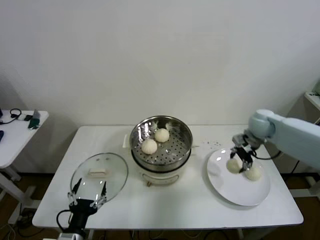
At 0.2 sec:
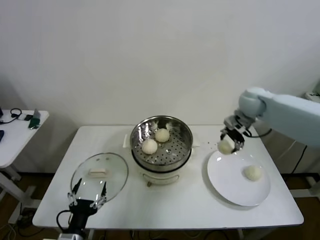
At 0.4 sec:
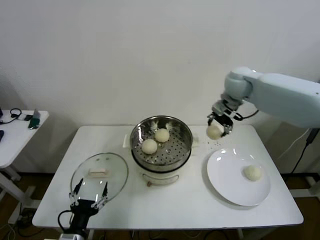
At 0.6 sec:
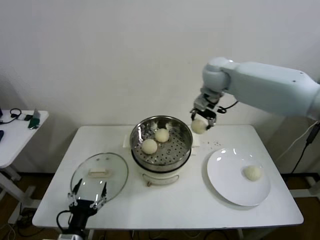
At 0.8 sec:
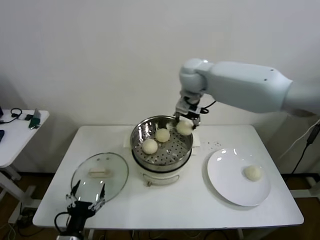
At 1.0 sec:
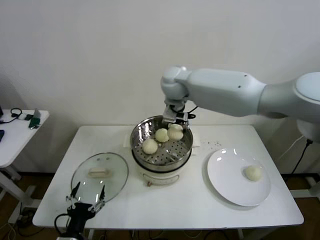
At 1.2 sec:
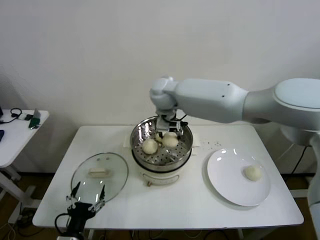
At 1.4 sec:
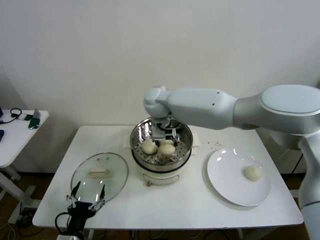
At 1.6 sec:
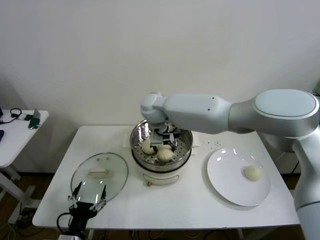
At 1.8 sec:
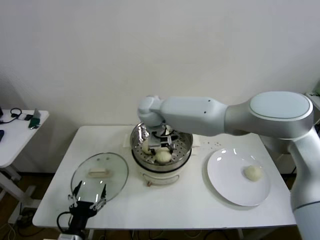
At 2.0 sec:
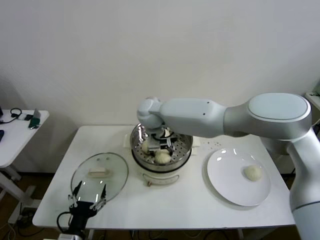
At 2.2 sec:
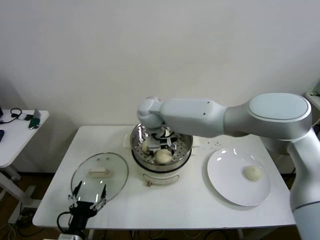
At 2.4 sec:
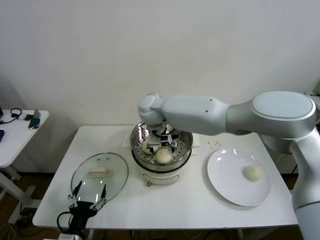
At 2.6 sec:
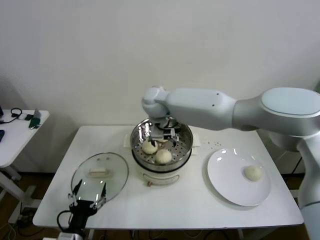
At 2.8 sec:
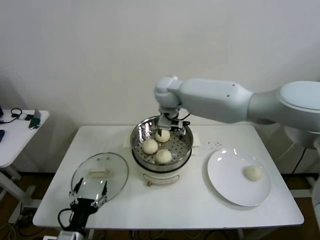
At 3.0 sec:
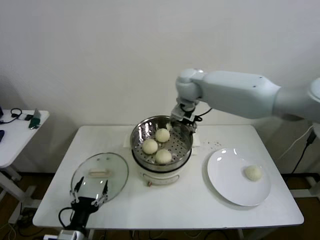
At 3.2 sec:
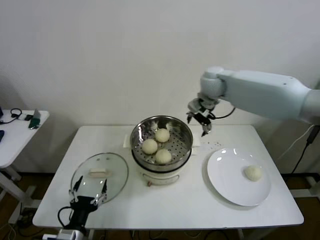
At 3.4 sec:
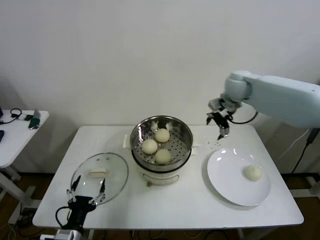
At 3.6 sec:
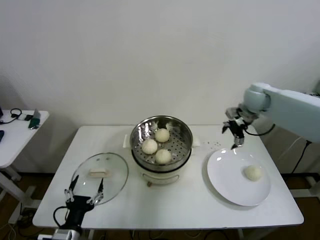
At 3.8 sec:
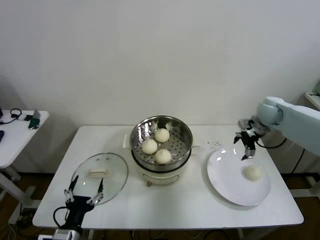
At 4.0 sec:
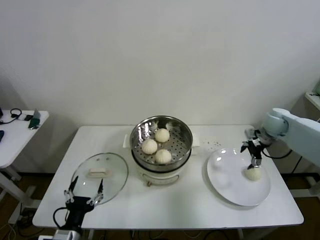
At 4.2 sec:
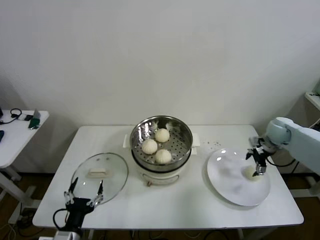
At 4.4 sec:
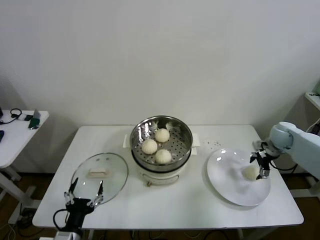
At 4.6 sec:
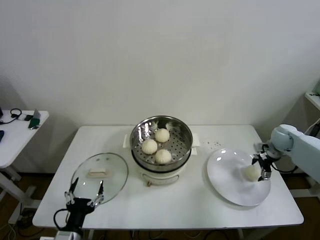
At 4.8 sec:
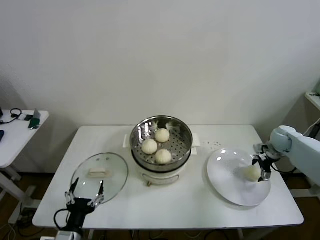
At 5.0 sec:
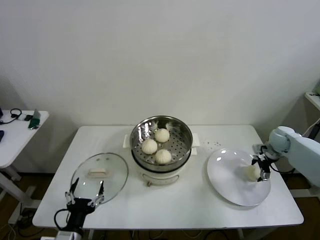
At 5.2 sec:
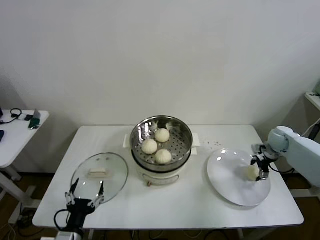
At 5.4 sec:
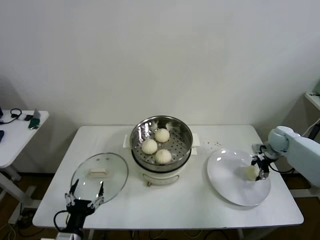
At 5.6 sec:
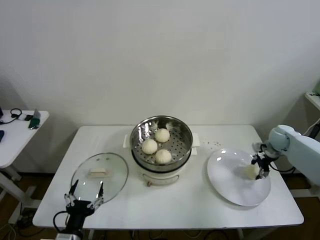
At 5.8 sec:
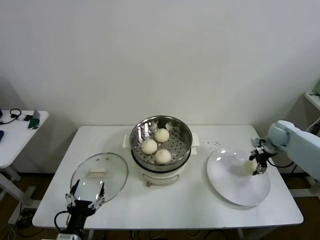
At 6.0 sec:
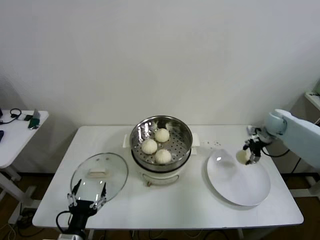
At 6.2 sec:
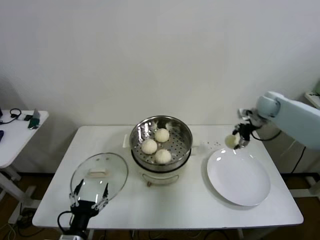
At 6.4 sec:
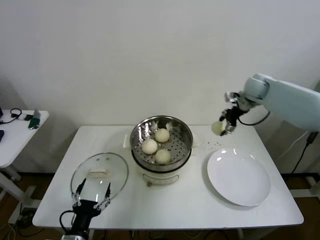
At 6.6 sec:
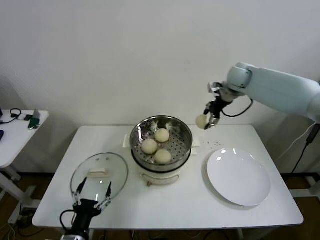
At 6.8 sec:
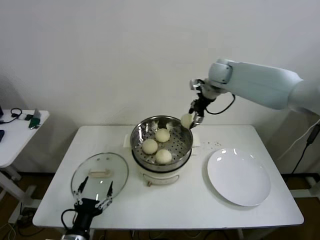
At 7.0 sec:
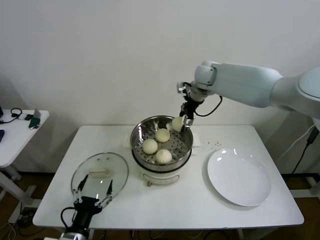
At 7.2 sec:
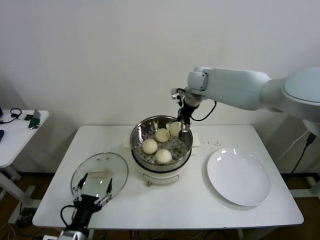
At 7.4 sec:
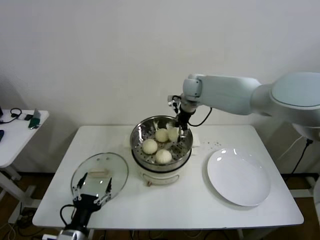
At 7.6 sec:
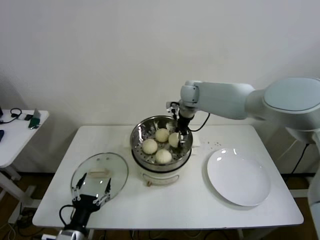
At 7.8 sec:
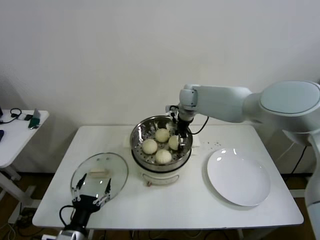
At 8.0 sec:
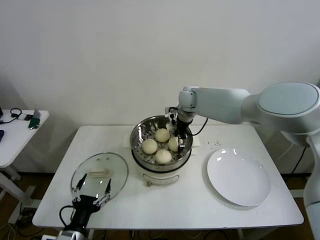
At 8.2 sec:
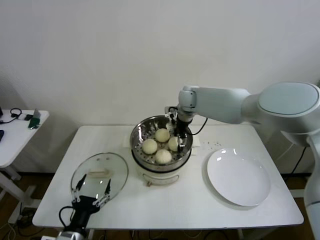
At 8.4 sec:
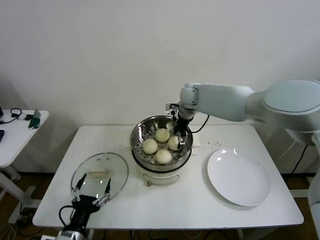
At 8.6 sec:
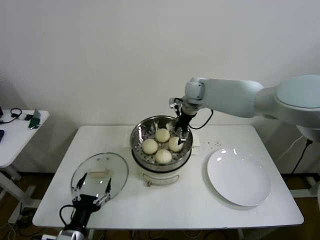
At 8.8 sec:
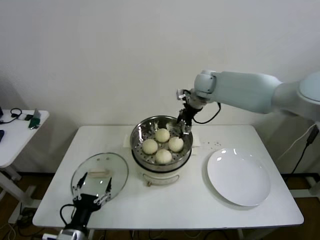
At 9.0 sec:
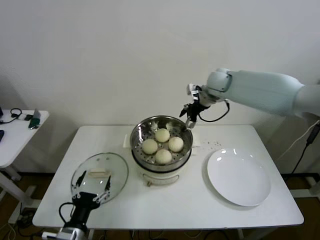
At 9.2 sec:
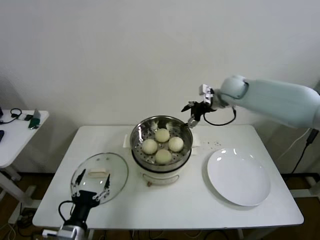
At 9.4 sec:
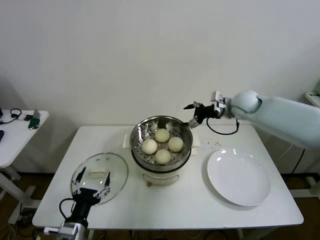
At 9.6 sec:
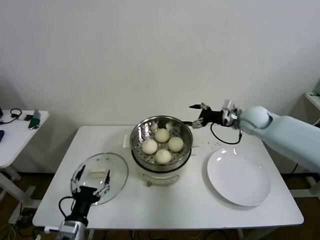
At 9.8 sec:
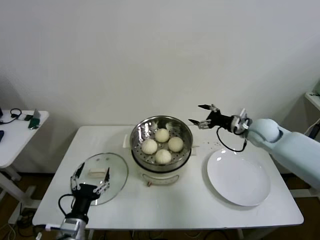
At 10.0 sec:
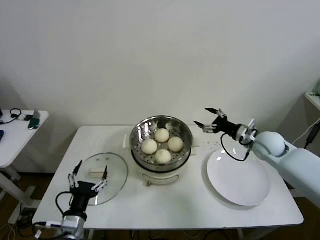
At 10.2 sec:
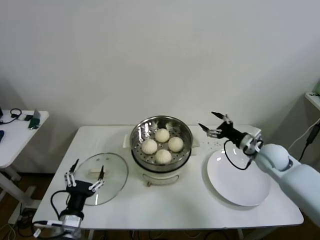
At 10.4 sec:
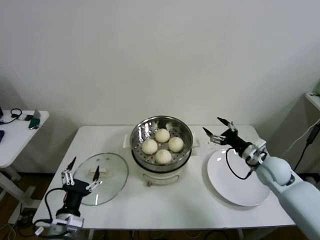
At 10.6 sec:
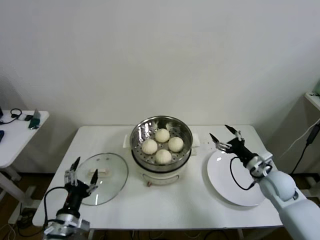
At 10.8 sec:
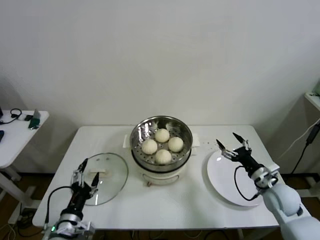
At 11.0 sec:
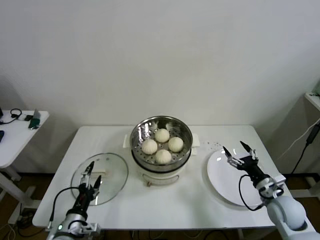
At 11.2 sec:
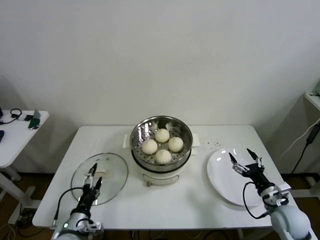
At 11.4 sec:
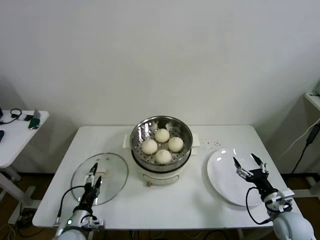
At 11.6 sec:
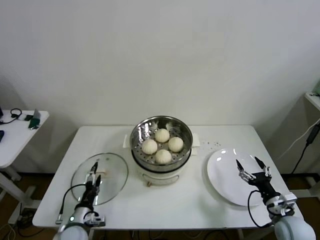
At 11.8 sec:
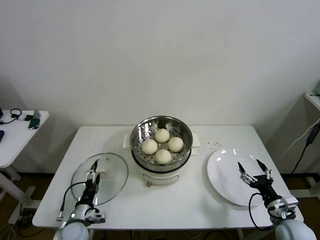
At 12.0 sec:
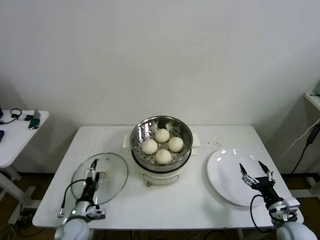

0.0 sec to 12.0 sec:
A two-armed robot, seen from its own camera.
Step, 0.0 sec to 2.2 sec: Place the baozi on the steamer with right gripper.
Step, 2.4 sec to 5.4 sec: Grasp the baozi in the plate with right gripper.
Step, 5.6 sec to 8.2 sec: Place the baozi on the steamer with right gripper.
0.0 sec to 1.6 sec: The right gripper travels to the left by roughly 35 cm.
1.6 sec to 3.0 sec: The right gripper heads to the right and upward, covering approximately 15 cm, and opens up.
3.0 sec to 4.4 sec: The right gripper heads to the right and downward, covering about 40 cm.
4.4 sec to 6.0 sec: The right gripper changes place by some 5 cm, and closes.
6.0 sec to 7.6 sec: The right gripper is displaced to the left by approximately 35 cm.
7.6 sec to 9.0 sec: The right gripper goes approximately 10 cm to the right and upward, and opens.
9.0 sec to 10.4 sec: The right gripper goes roughly 35 cm downward, backward and to the right.
10.4 sec to 12.0 sec: The left gripper goes about 15 cm downward and forward, while the right gripper heads backward and downward, covering roughly 20 cm.

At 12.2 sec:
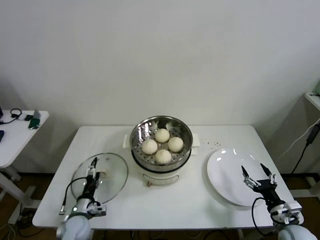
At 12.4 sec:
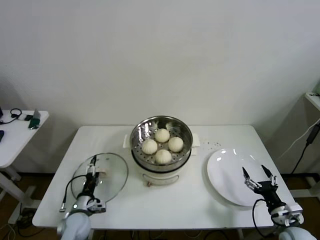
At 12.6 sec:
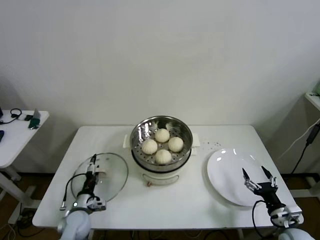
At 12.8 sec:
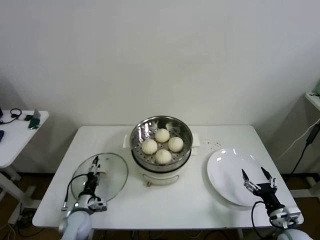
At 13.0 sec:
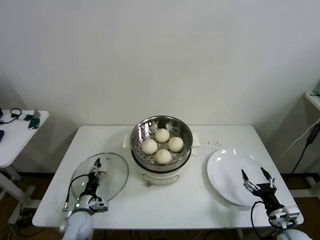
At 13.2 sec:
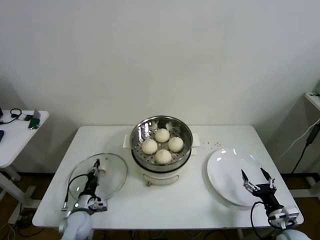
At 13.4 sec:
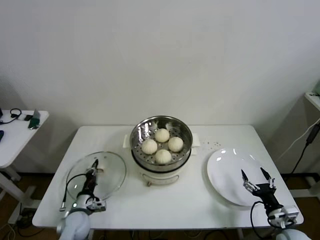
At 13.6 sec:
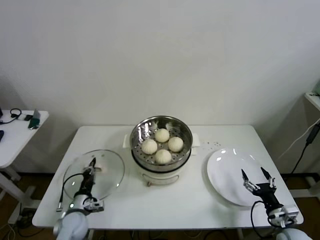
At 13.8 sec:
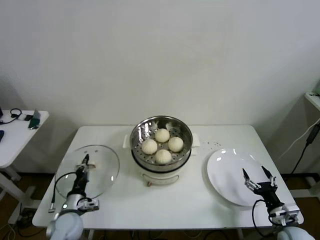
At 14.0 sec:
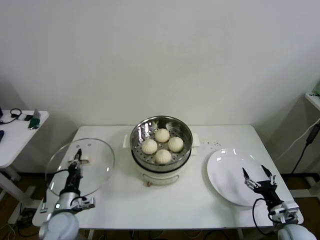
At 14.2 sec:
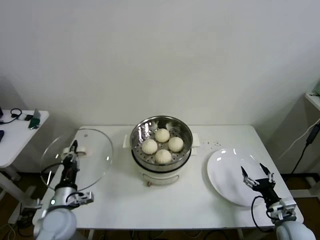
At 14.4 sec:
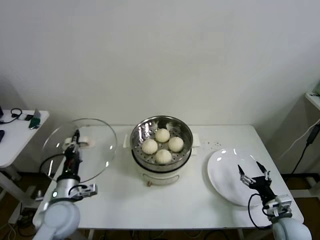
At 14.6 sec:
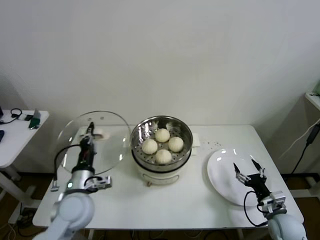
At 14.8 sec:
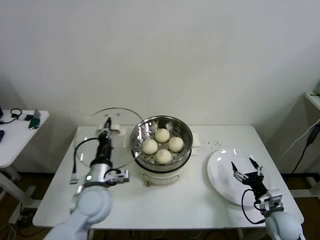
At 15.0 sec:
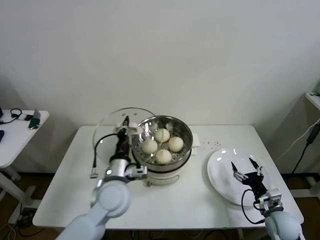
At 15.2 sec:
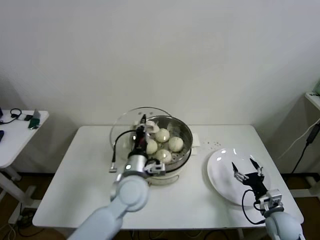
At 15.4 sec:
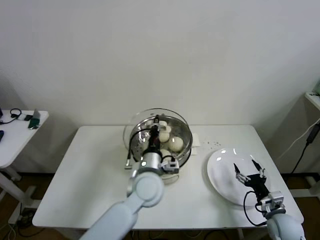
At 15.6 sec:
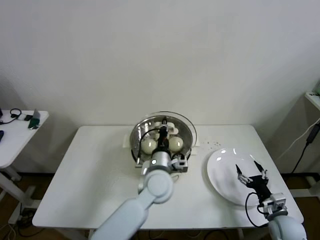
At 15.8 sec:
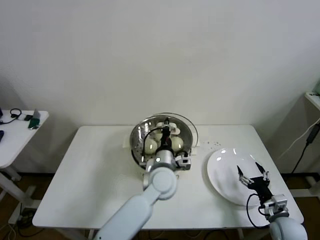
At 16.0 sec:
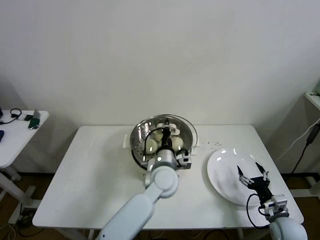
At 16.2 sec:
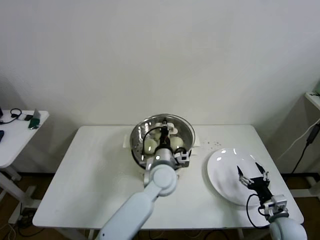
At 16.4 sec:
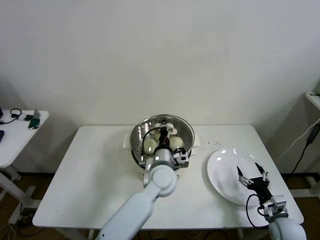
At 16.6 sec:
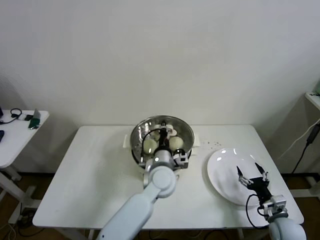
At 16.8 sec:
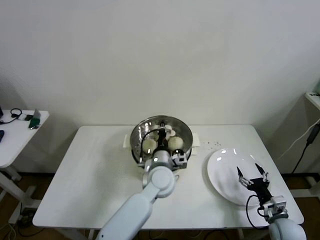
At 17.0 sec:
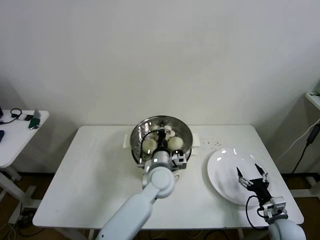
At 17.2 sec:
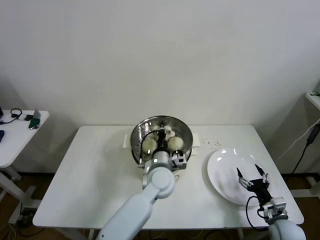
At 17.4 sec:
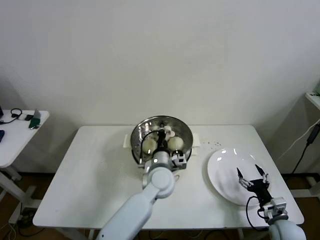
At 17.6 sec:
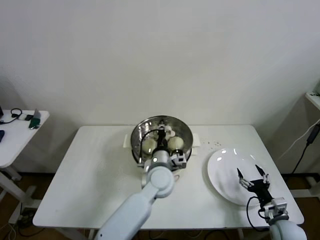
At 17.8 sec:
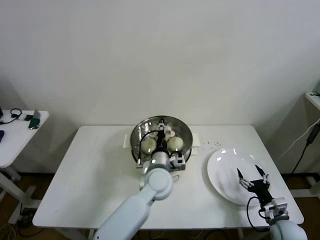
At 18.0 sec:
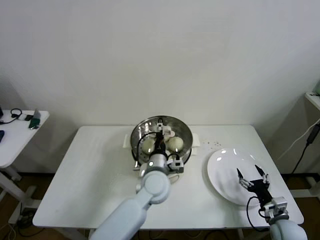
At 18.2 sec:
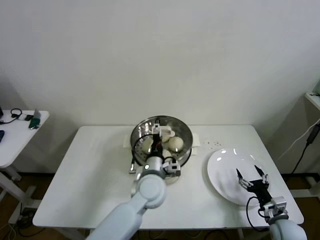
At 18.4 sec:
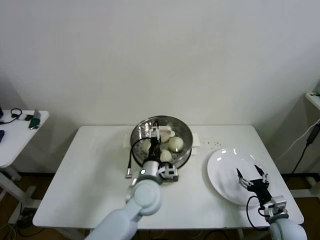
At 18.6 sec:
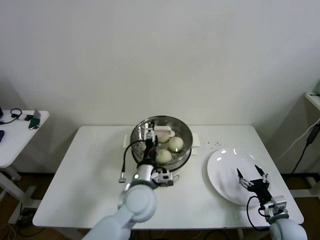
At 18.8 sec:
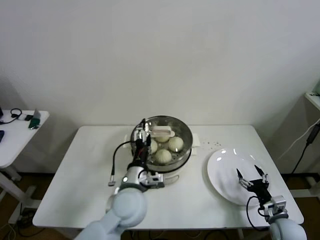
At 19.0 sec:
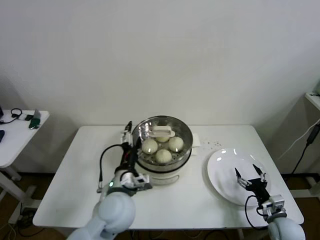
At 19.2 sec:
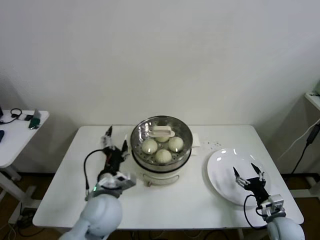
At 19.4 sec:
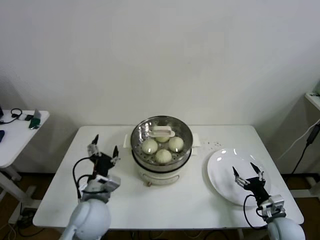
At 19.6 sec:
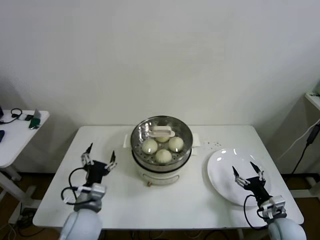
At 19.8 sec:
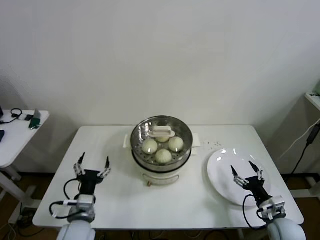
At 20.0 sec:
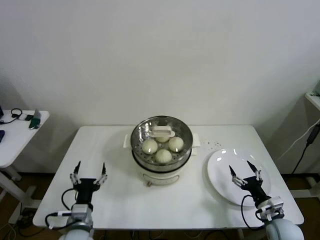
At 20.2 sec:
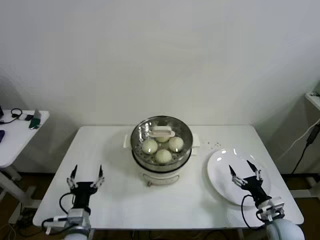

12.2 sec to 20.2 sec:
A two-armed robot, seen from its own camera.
Step, 13.4 sec to 17.8 sec: Place the pot lid on the steamer with left gripper.
12.2 sec to 13.8 sec: The left gripper closes its fingers.
13.8 sec to 15.4 sec: The left gripper is displaced to the right and upward by roughly 30 cm.
15.4 sec to 17.0 sec: The left gripper is displaced to the right by about 5 cm.
17.0 sec to 18.6 sec: The left gripper goes about 5 cm backward, and opens up.
18.6 sec to 20.2 sec: The left gripper goes approximately 25 cm to the left, backward and downward.
